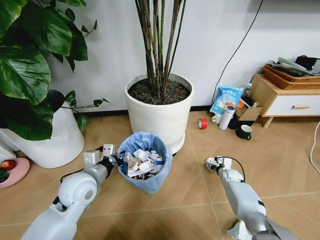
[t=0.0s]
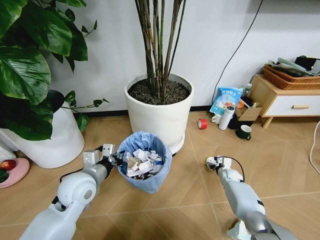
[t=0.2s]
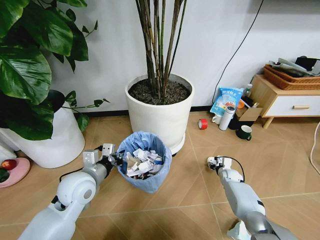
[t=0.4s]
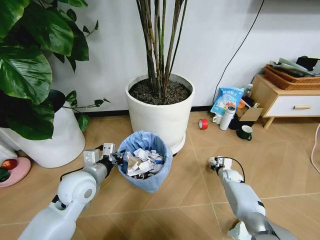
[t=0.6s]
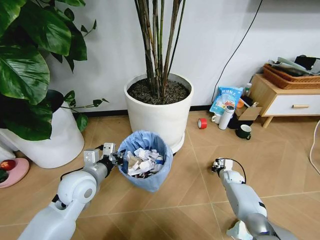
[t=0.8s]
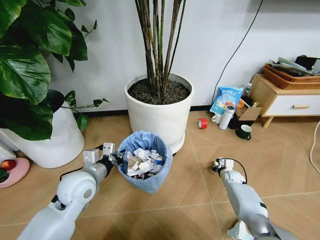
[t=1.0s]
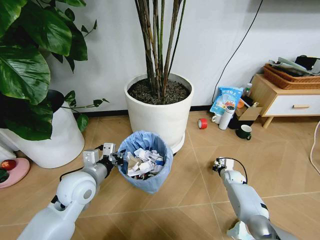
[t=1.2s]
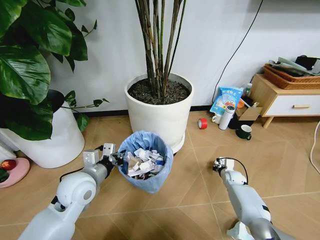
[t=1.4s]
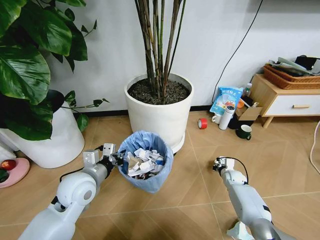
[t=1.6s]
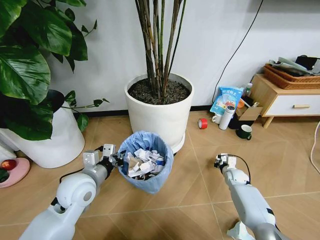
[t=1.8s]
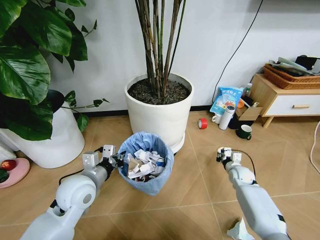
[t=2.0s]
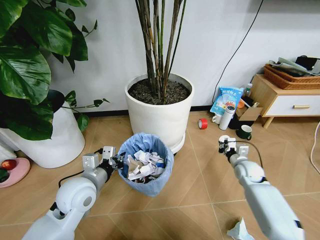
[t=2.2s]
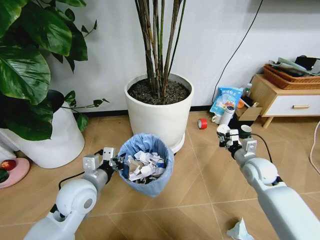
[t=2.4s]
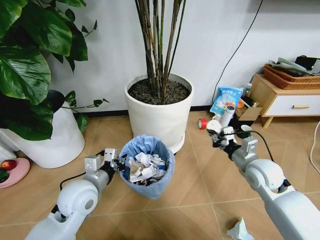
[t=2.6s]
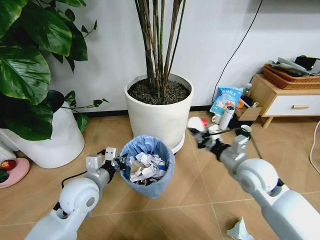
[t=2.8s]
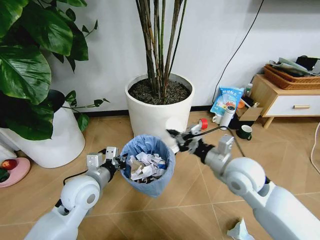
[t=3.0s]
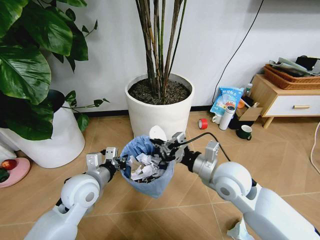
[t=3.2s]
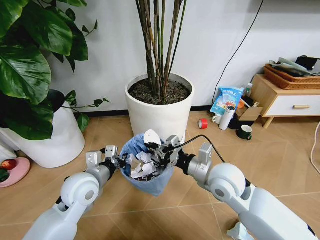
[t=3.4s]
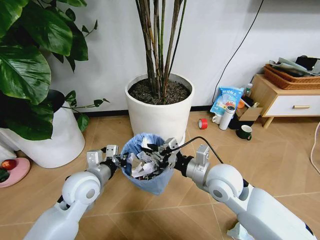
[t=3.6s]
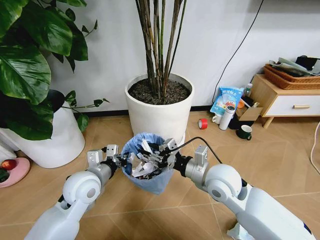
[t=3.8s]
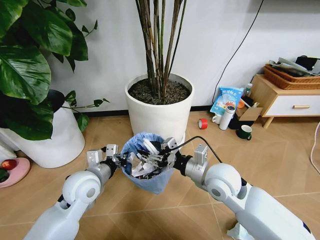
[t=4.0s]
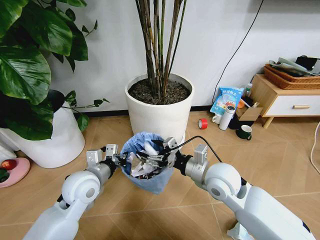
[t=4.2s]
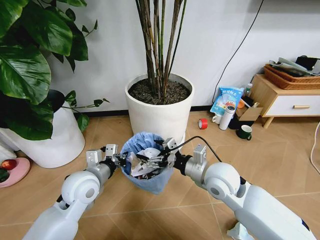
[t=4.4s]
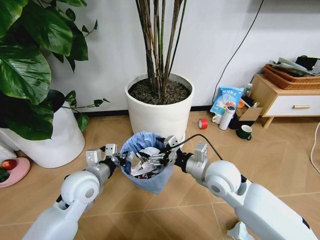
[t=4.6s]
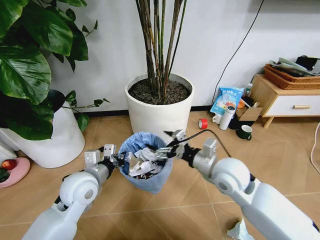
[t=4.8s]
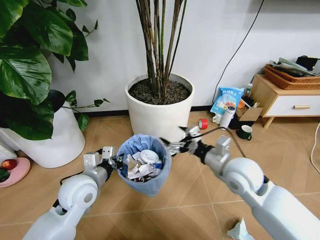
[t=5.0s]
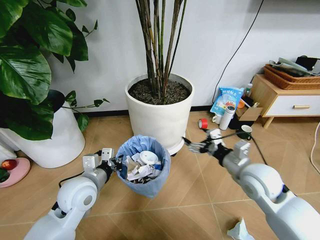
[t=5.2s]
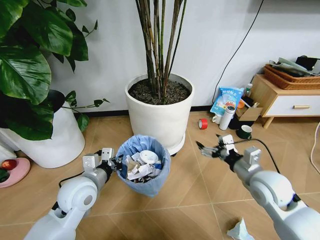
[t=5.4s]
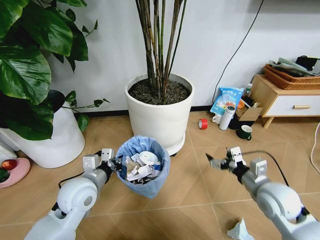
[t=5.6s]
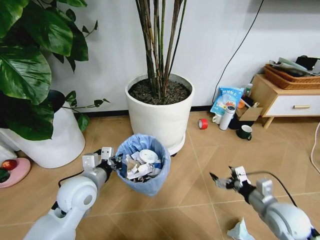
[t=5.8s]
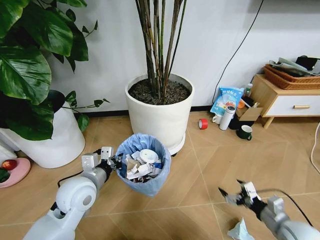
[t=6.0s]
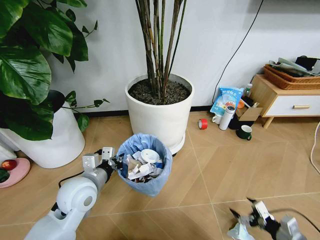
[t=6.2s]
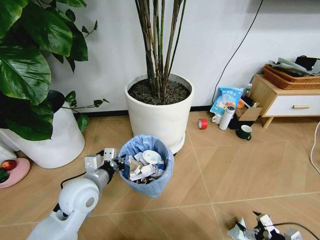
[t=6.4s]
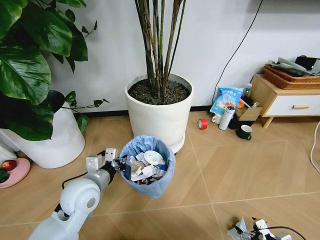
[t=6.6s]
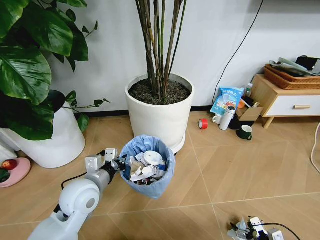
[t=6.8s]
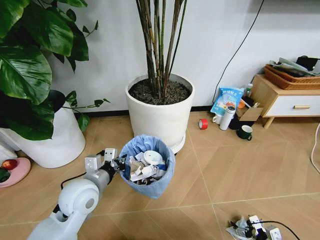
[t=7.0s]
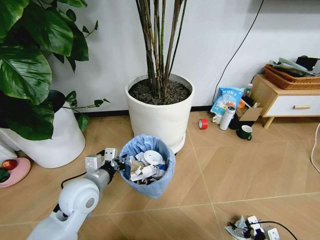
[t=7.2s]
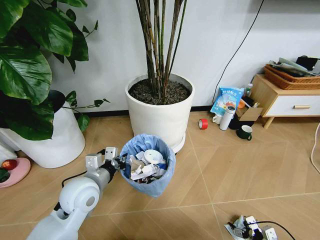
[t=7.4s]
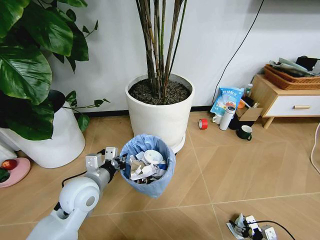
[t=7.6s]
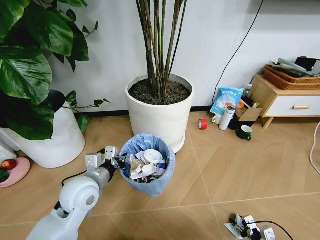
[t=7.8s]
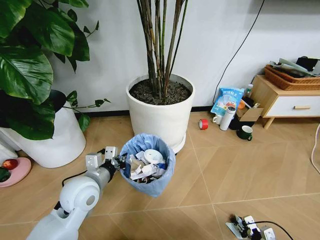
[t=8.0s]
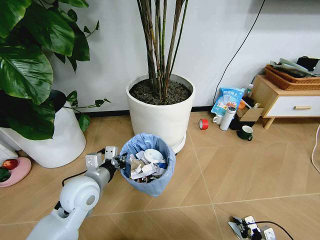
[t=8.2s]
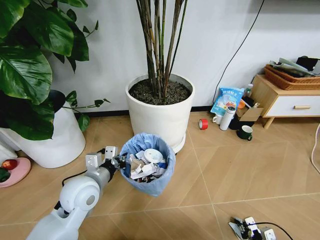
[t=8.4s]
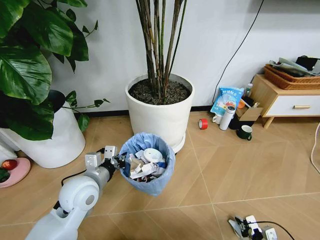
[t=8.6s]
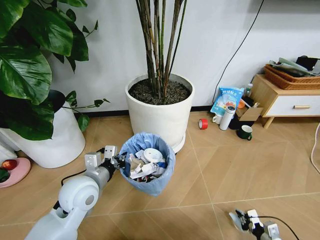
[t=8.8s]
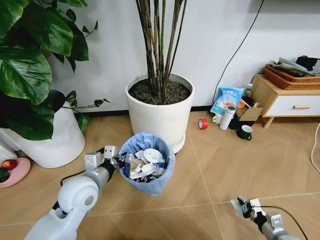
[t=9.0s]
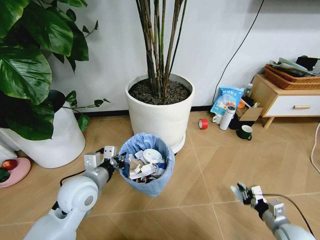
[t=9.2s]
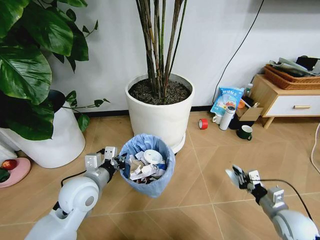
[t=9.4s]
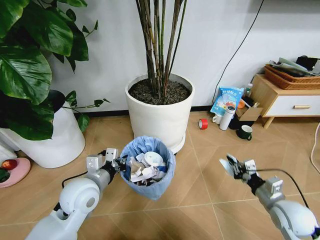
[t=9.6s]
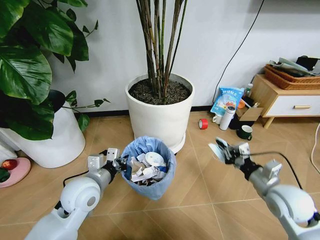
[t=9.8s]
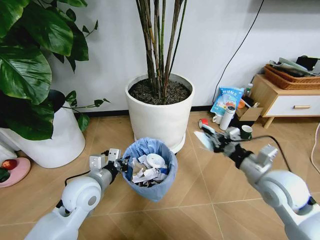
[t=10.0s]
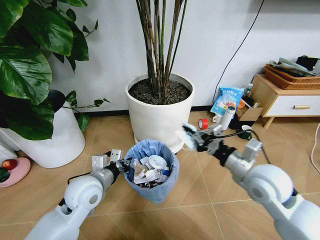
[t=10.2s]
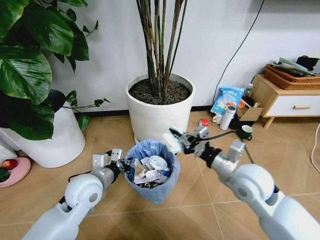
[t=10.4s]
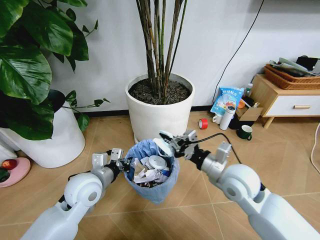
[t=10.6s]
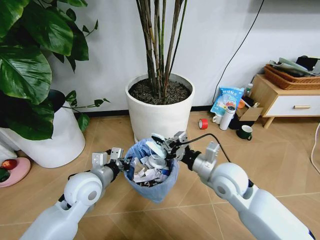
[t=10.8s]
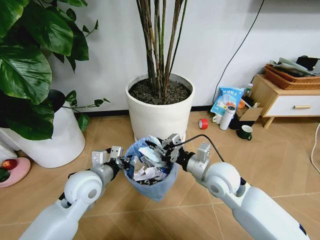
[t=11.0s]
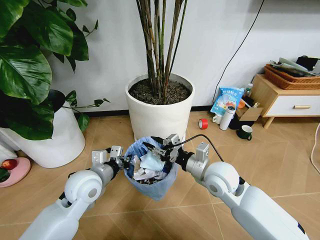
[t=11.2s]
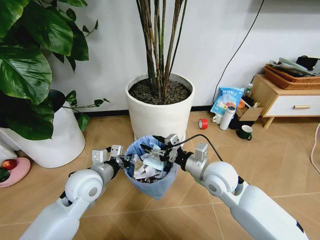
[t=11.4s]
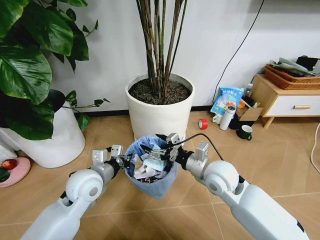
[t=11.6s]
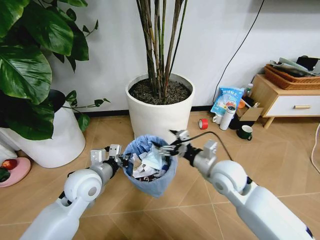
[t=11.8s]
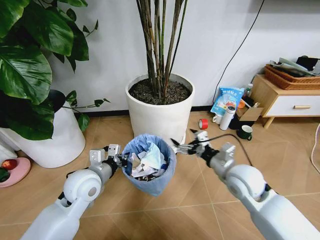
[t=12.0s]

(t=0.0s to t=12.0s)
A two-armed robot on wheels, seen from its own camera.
Task of the whole recording: Pick up the trash bin and place the garbage on the floor into it.
t=0.0s - t=1.6s: The right gripper closes up.
t=1.6s - t=3.0s: The right gripper goes about 35 cm upward, to the left and backward.
t=3.0s - t=4.4s: The right gripper moves to the left, some 5 cm, and opens up.
t=4.4s - t=6.0s: The right gripper heads to the right, downward and backward, covering approximately 30 cm.
t=6.0s - t=7.6s: The right gripper is displaced downward by approximately 15 cm.
t=7.6s - t=9.0s: The right gripper goes about 5 cm upward, and closes up.
t=9.0s - t=10.4s: The right gripper shifts approximately 35 cm upward, to the left and forward.
t=10.4s - t=12.0s: The right gripper opens its fingers.

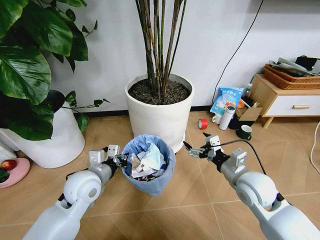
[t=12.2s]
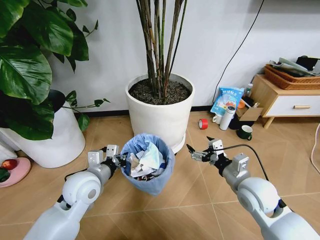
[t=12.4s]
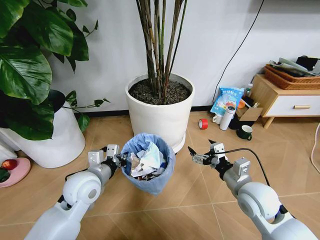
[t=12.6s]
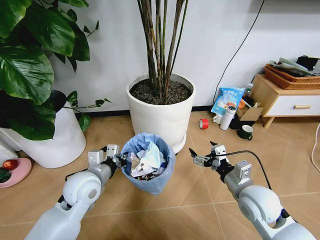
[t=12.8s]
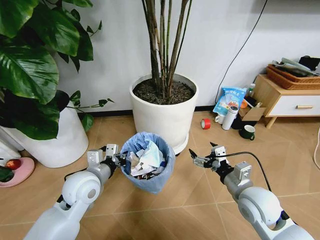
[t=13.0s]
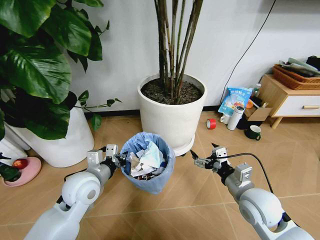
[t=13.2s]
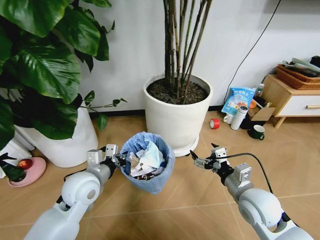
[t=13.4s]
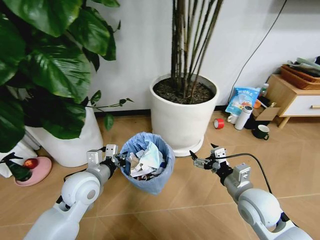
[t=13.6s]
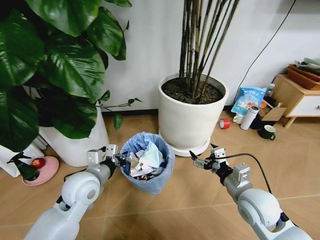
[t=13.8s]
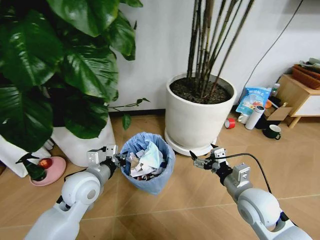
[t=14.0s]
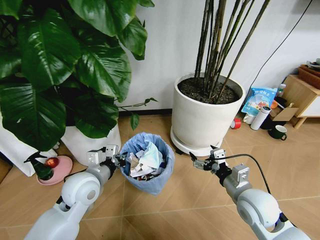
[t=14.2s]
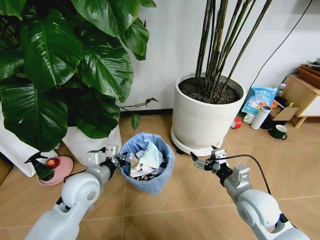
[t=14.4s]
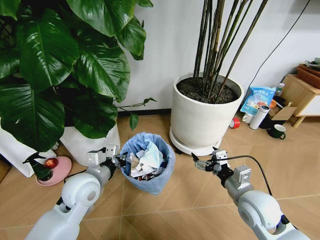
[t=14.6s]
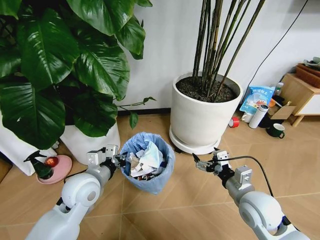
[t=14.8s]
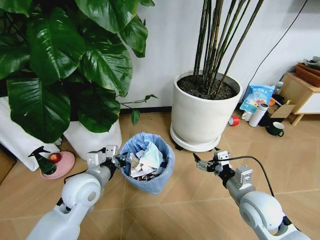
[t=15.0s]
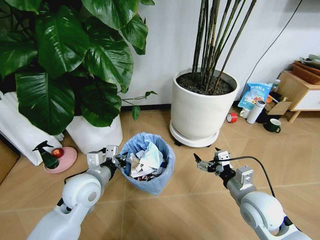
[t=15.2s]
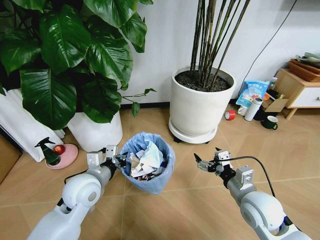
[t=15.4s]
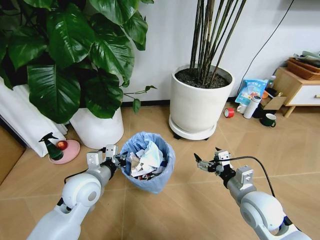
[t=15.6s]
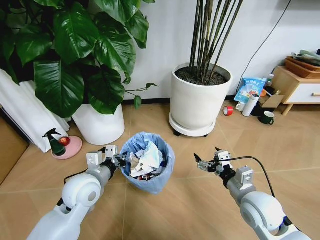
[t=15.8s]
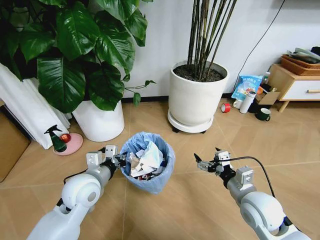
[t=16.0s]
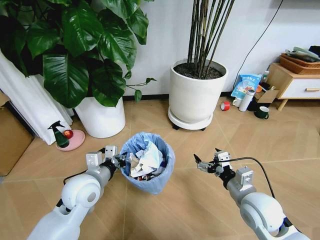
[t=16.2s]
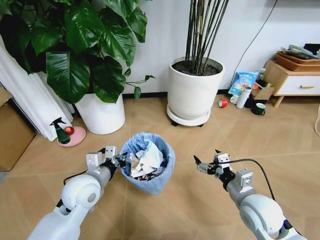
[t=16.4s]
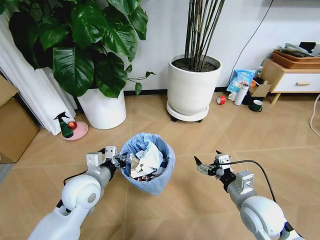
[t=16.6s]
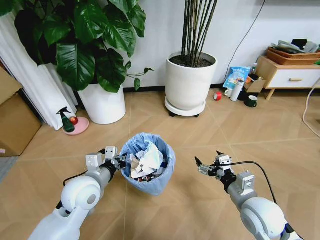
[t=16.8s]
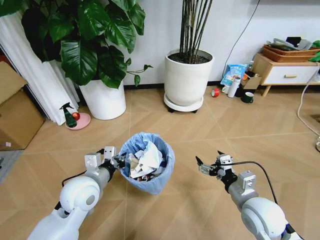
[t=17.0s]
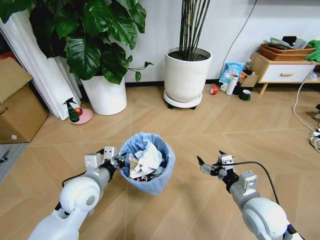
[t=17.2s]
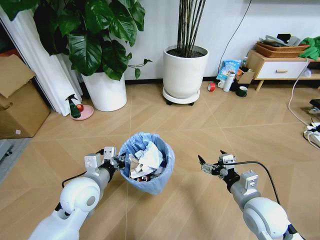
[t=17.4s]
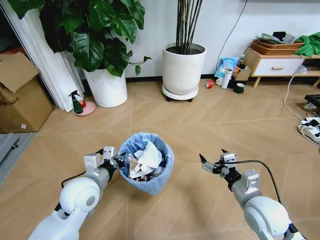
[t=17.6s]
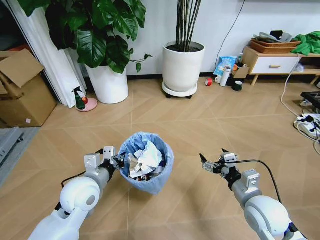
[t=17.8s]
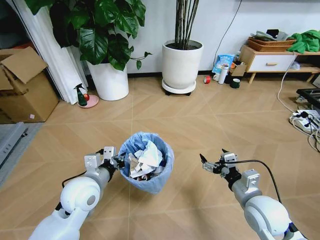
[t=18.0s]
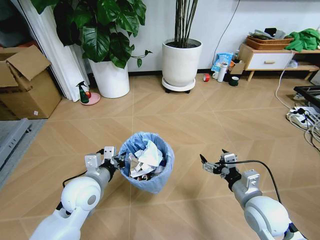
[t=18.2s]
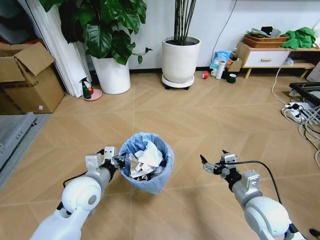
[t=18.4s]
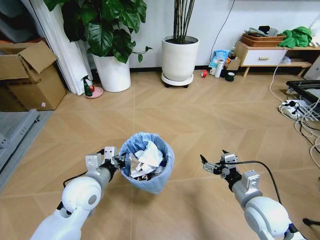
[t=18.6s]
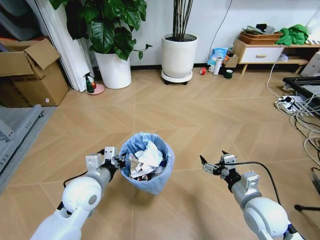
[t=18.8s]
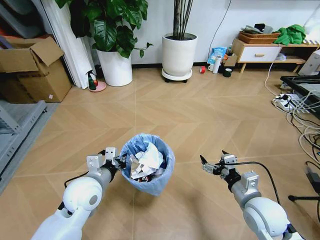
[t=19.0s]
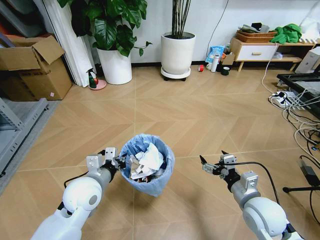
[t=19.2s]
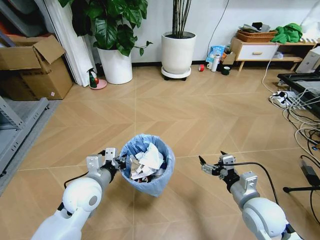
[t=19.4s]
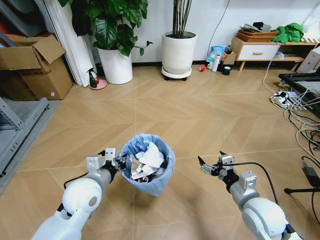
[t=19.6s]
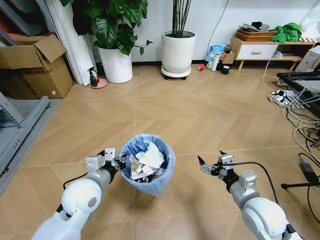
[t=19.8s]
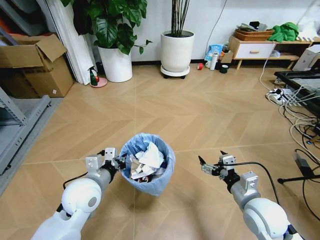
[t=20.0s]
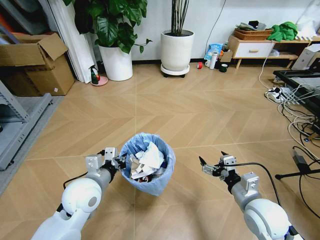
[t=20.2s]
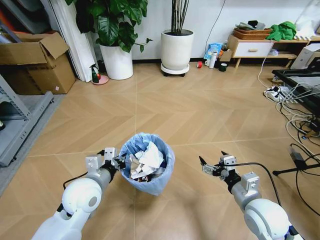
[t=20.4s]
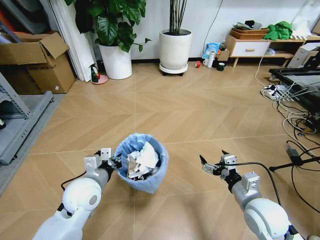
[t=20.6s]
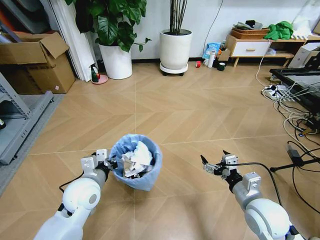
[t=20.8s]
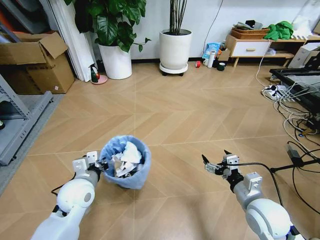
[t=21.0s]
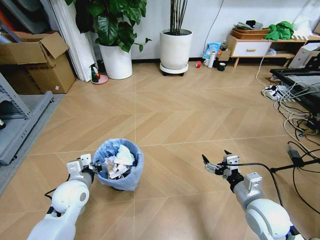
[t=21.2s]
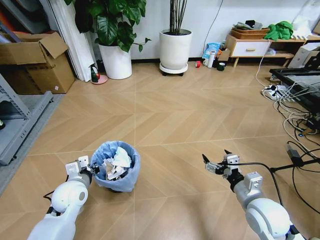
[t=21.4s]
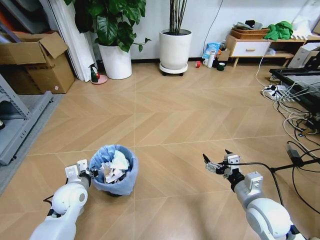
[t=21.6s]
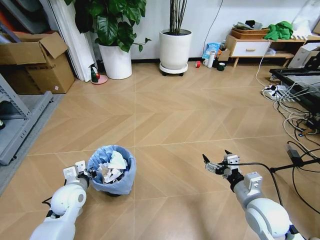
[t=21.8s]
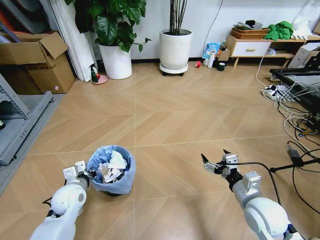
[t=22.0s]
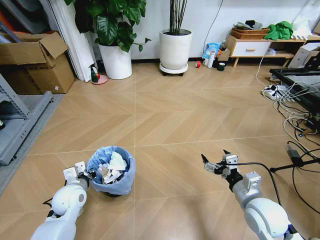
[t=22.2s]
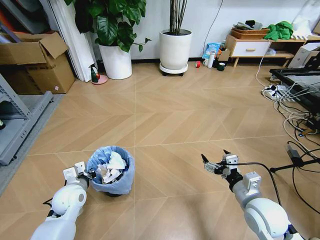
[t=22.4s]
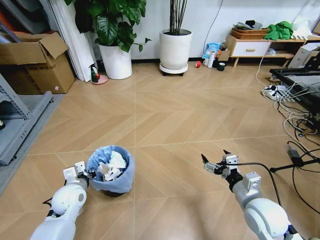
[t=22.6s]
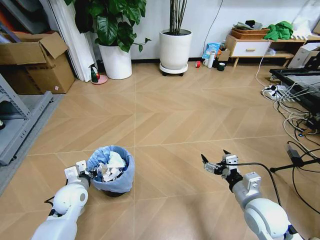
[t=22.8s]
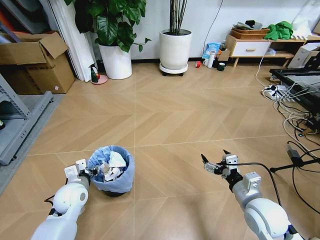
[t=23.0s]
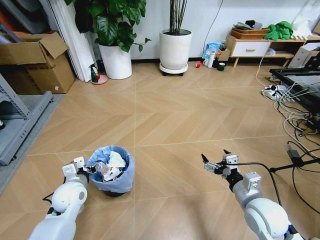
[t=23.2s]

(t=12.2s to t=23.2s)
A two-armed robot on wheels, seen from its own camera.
Task of the whole recording: Pick up the trash bin and place the garbage on the floor into it.
t=12.2s - t=13.8s: The right gripper changes place by some 5 cm.
t=20.0s - t=21.6s: The left gripper heads downward and to the left, covering approximately 10 cm.
t=21.6s - t=23.2s: The left gripper opens.
